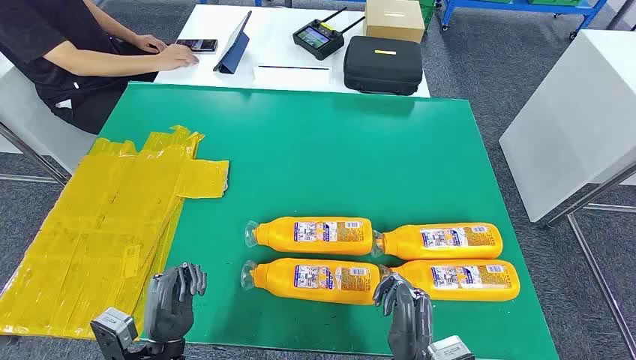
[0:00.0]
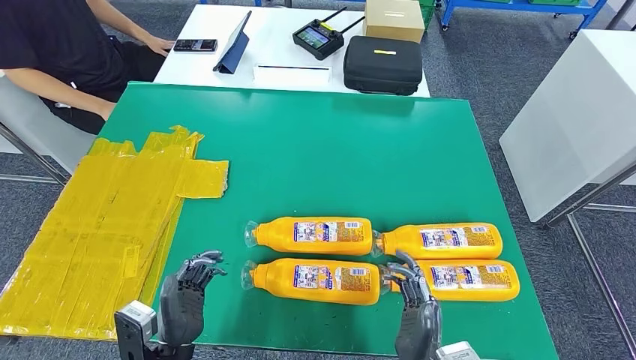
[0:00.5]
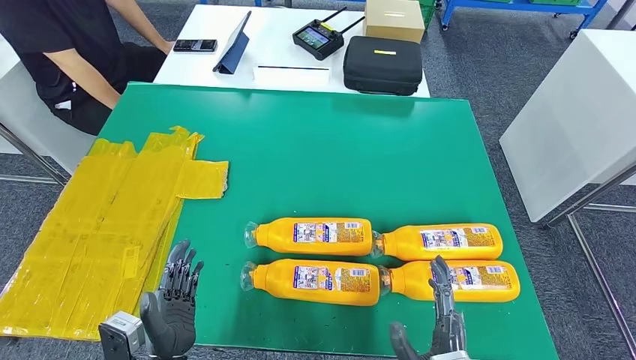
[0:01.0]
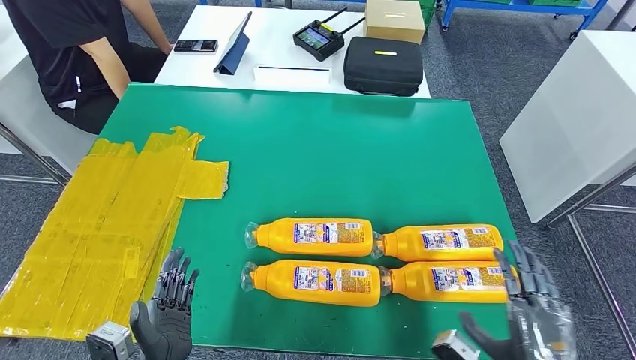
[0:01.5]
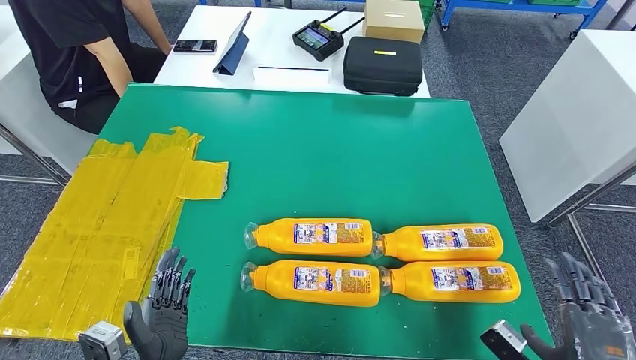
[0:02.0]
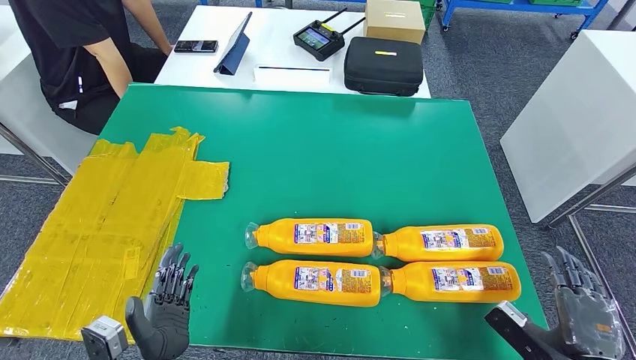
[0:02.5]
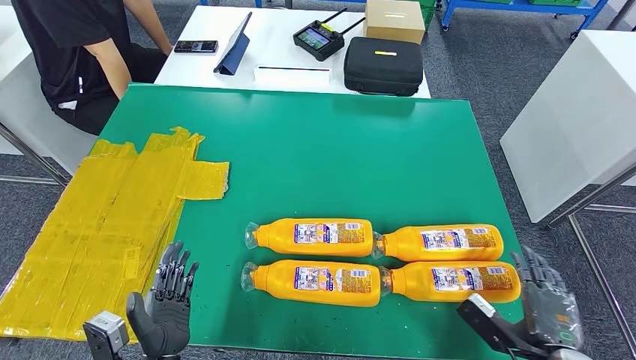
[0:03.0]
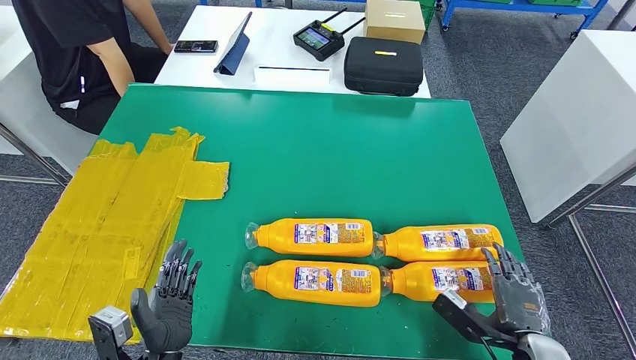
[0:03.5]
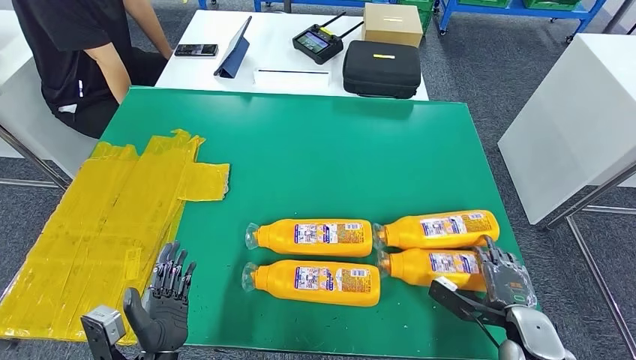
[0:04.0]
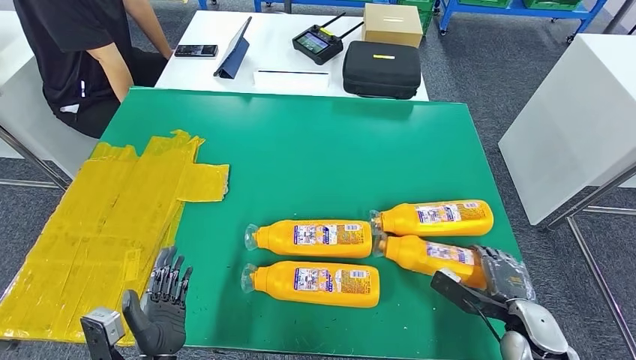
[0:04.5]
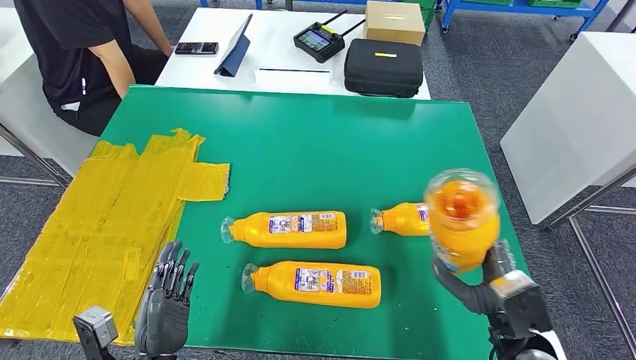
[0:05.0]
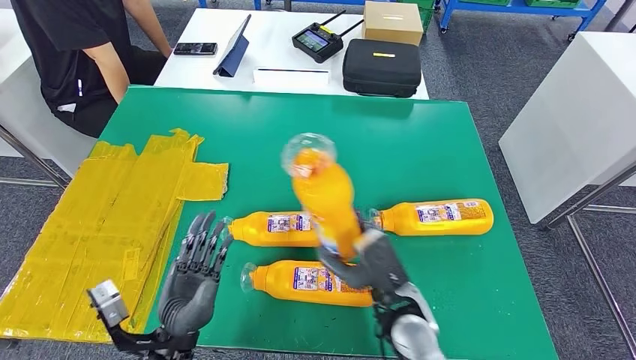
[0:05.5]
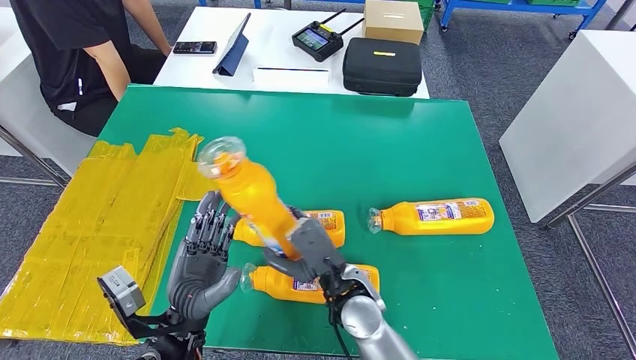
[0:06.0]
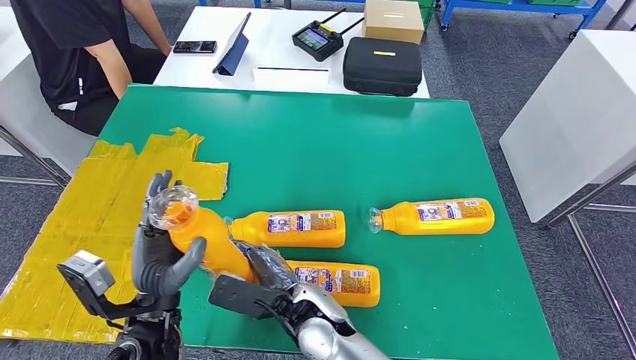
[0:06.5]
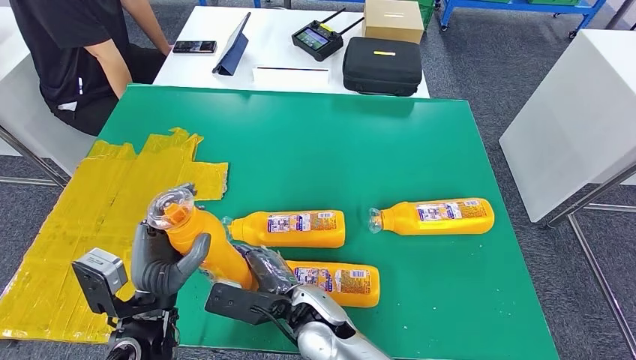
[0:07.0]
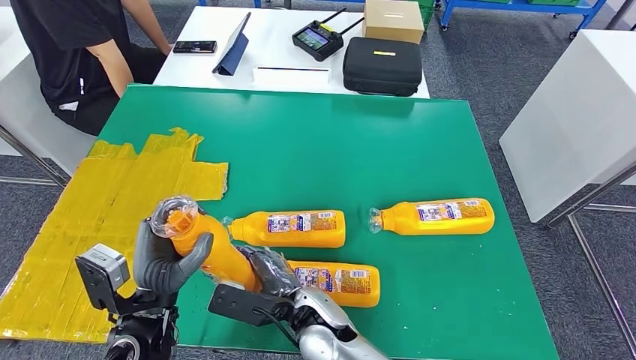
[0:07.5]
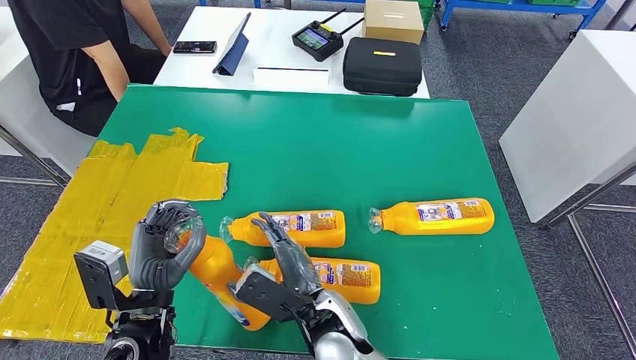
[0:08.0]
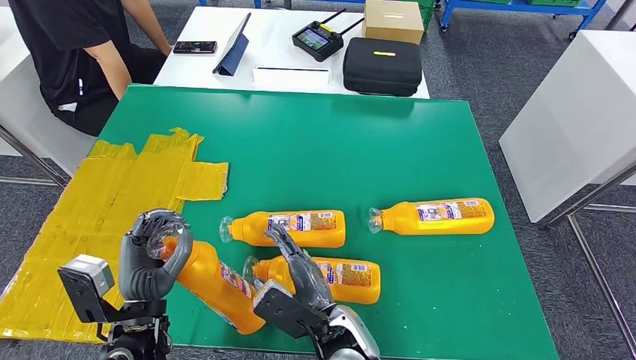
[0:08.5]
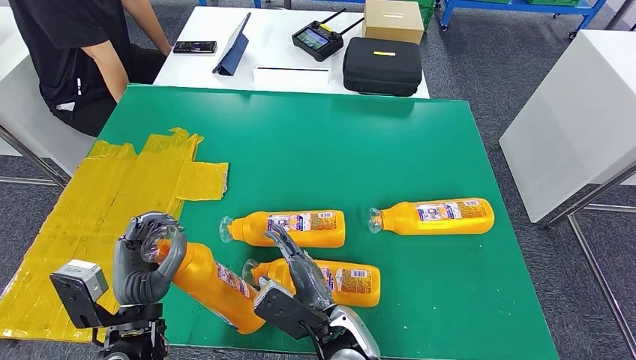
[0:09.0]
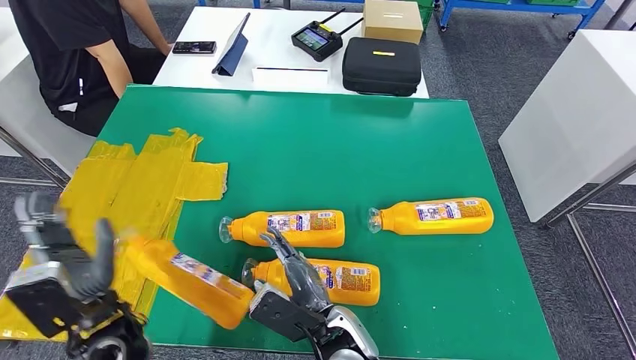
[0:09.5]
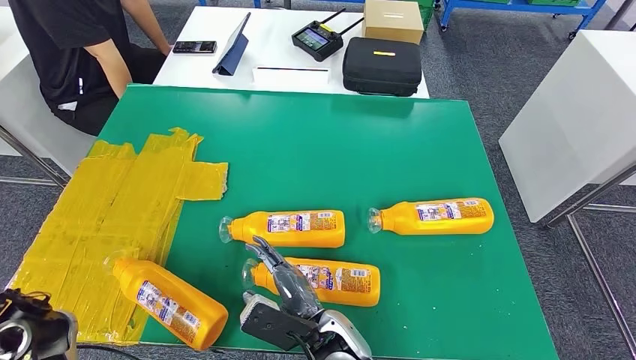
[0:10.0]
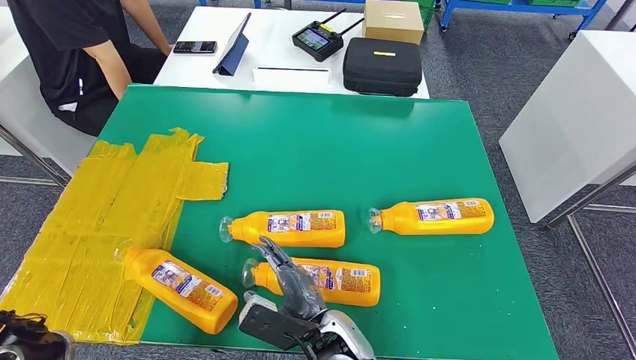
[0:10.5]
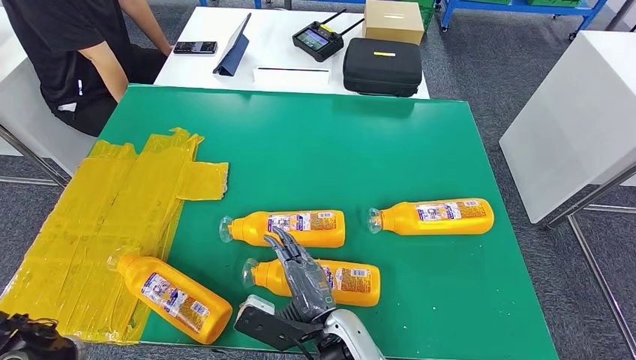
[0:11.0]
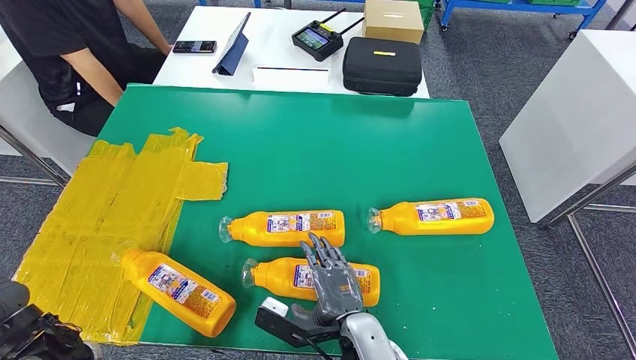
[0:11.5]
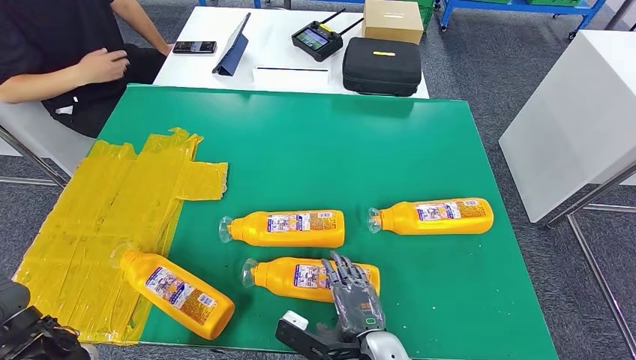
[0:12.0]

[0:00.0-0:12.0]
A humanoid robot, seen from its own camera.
Step, 0:00.0 to 0:06.0: Take the bottle from the table.
0:02.0 to 0:04.0: The right hand heads forward and downward, covering about 15 cm.
0:08.0 to 0:10.0: The left hand moves to the left, roughly 15 cm.
0:10.0 to 0:12.0: The left hand ends up about 5 cm from where it was. The right hand shifts approximately 5 cm to the right.

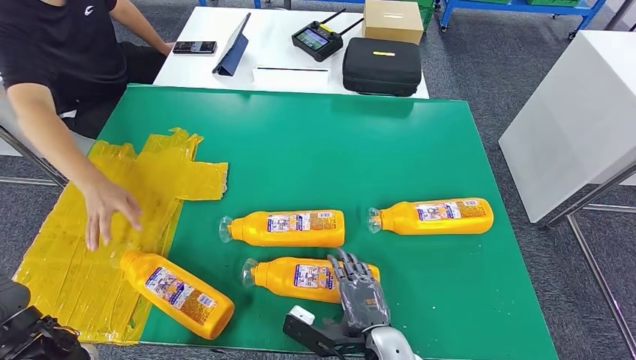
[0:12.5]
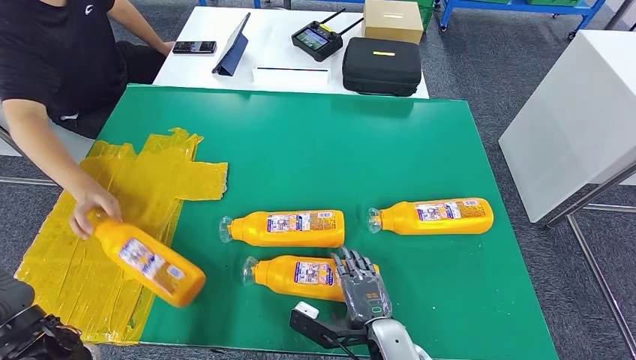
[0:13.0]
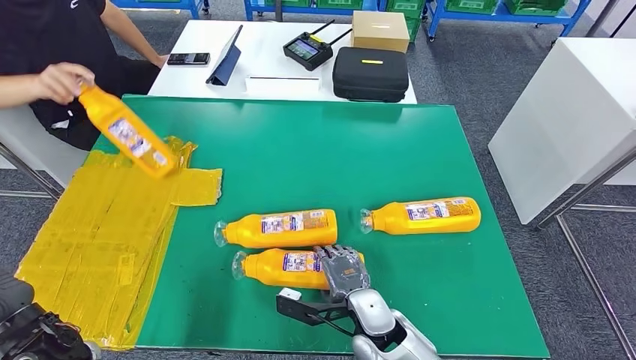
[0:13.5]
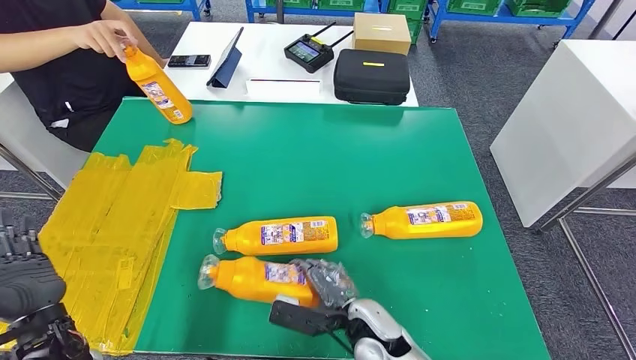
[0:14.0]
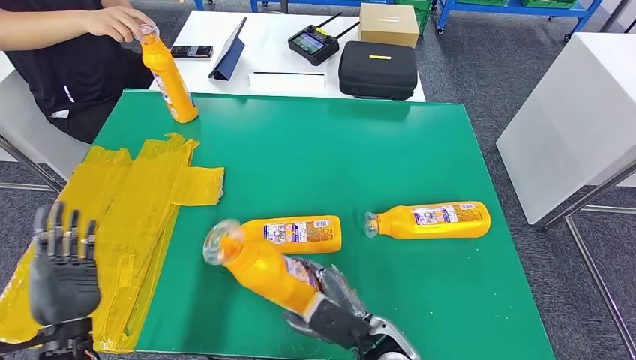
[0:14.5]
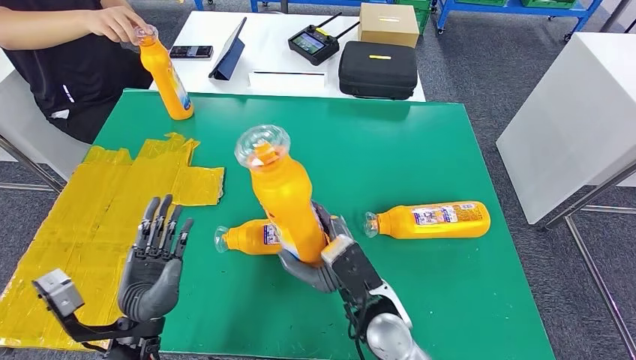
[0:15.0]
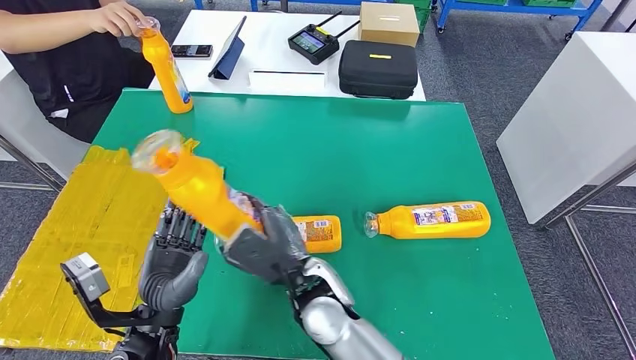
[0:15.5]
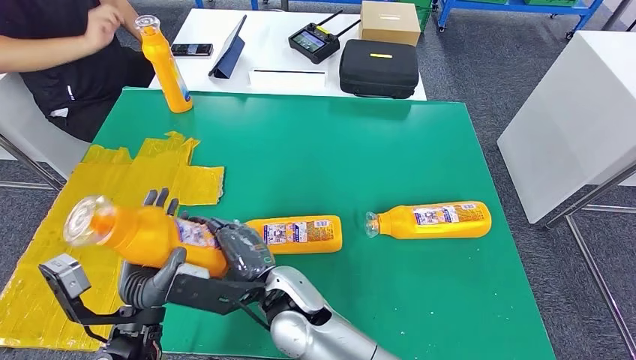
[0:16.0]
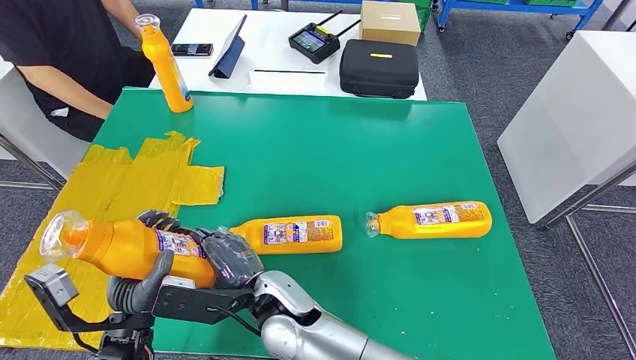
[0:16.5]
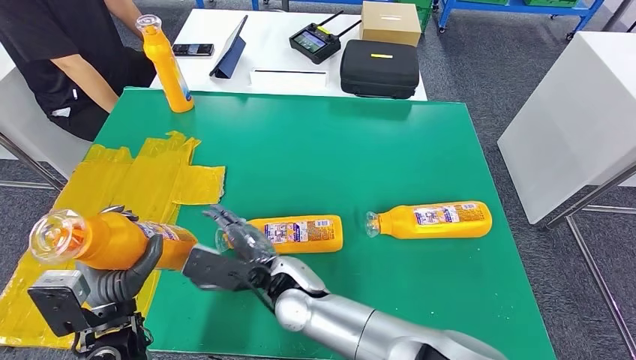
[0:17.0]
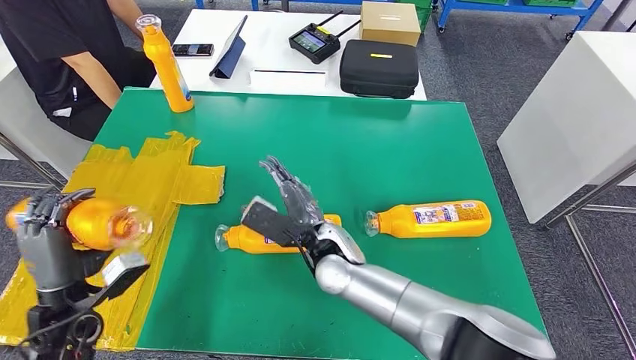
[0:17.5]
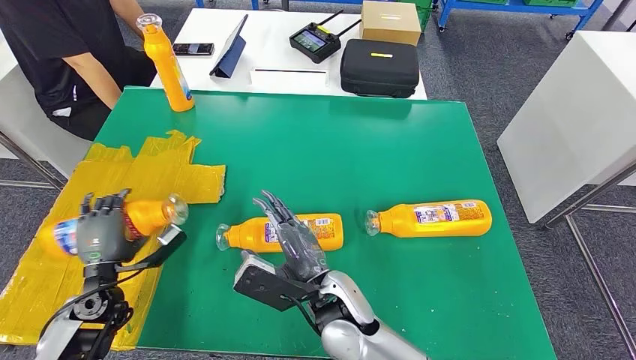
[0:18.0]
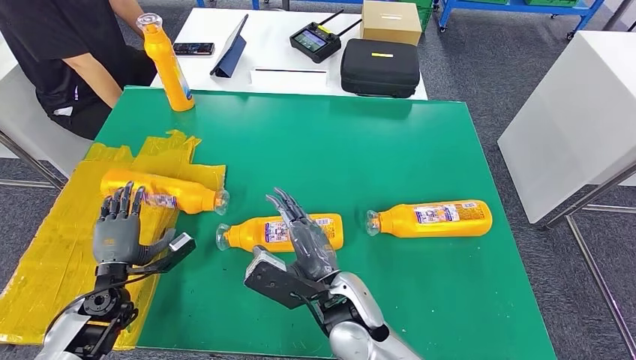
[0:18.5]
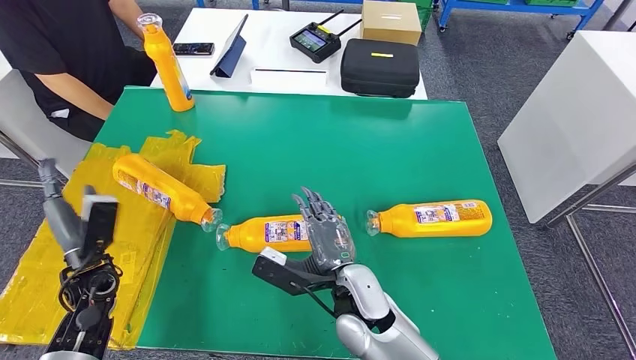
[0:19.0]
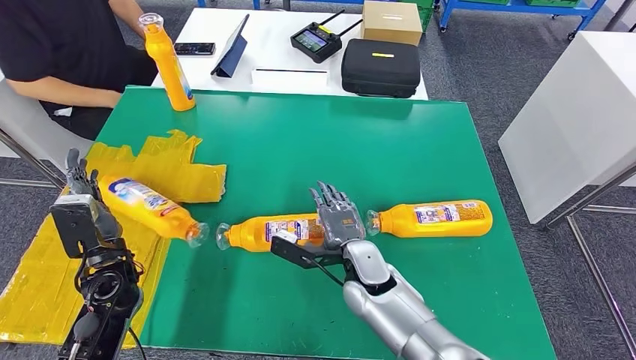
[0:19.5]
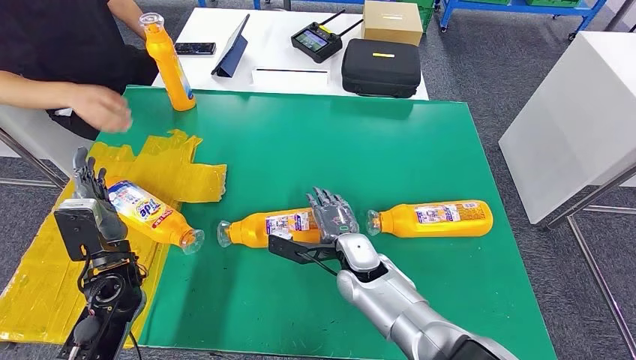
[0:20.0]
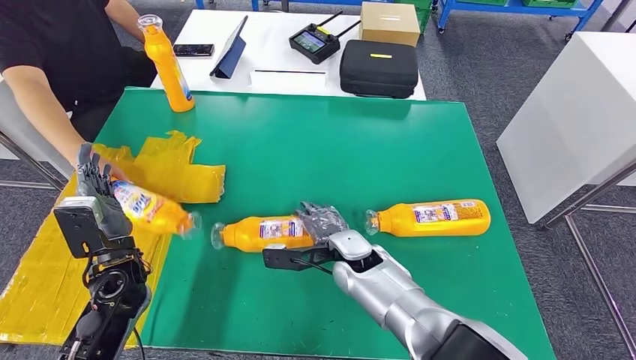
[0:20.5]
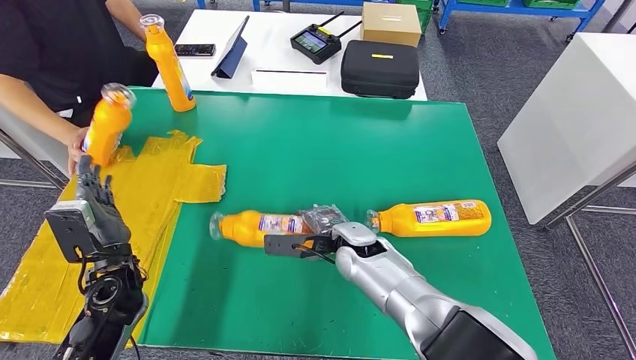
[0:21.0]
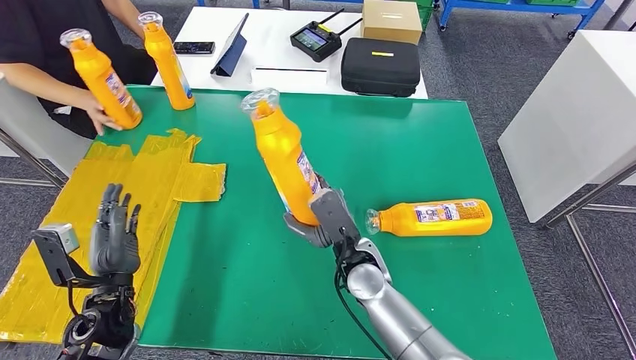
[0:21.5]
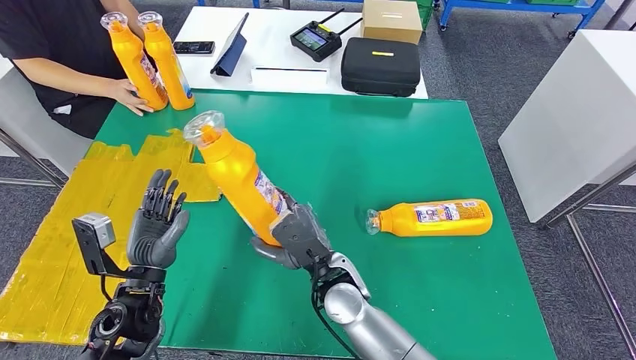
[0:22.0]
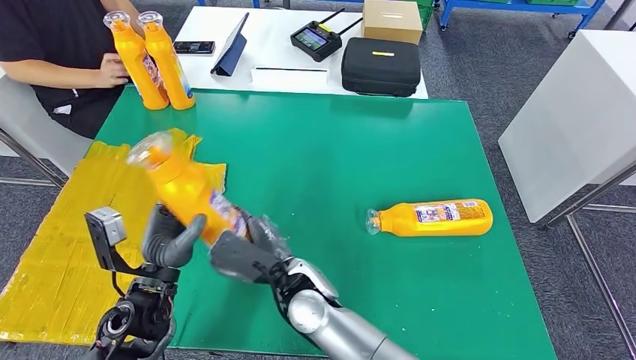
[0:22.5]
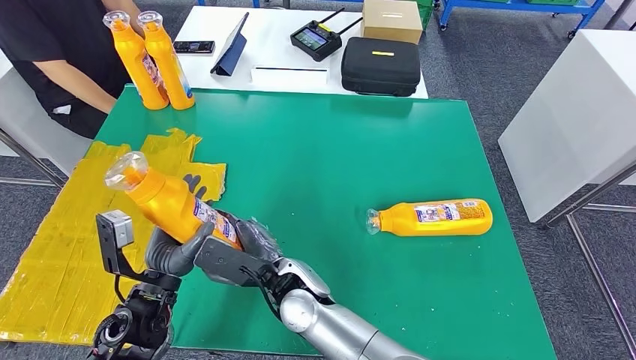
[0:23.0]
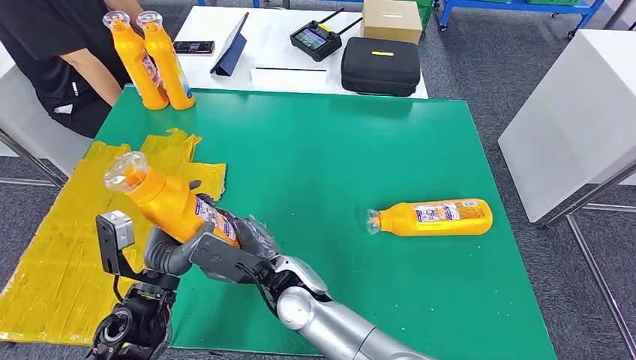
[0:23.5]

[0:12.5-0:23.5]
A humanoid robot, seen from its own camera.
Step, 0:13.0 to 0:16.0: Pick up the bottle from the table.
Step, 0:16.5 to 0:19.0: Flip the bottle to face forward.
